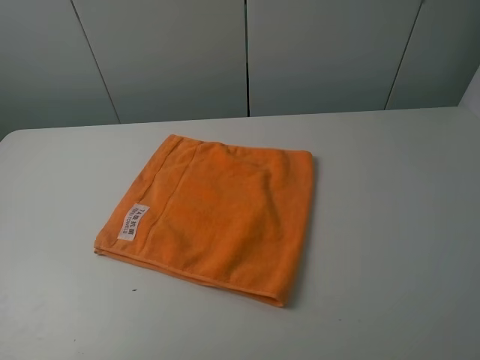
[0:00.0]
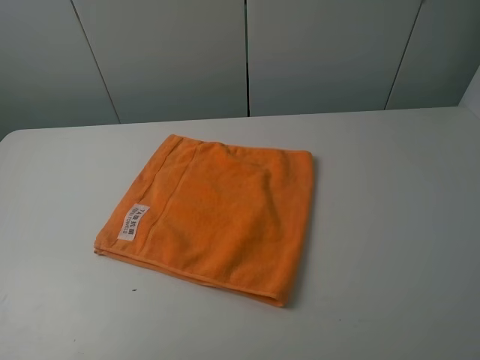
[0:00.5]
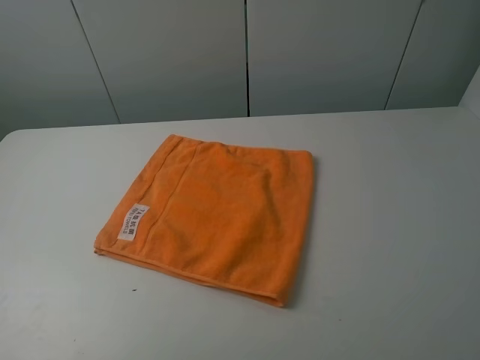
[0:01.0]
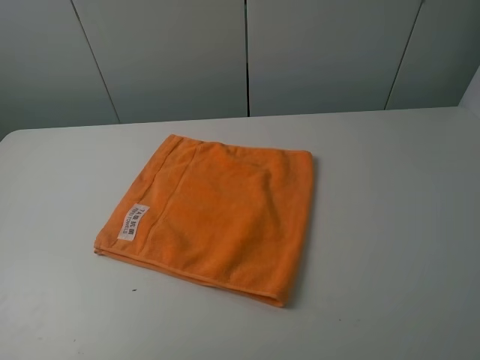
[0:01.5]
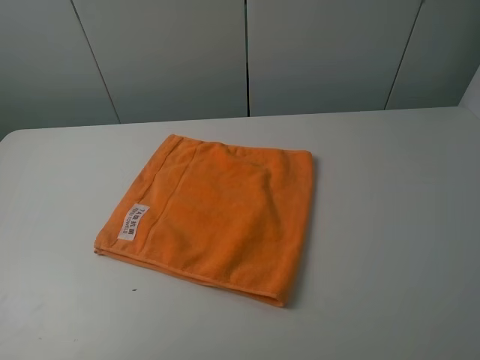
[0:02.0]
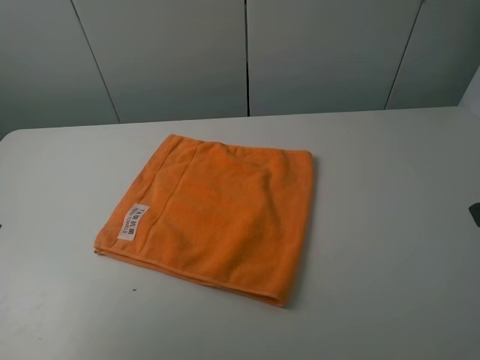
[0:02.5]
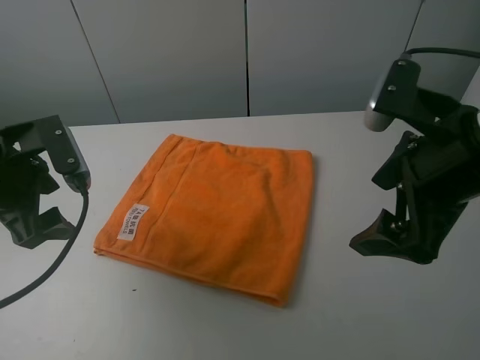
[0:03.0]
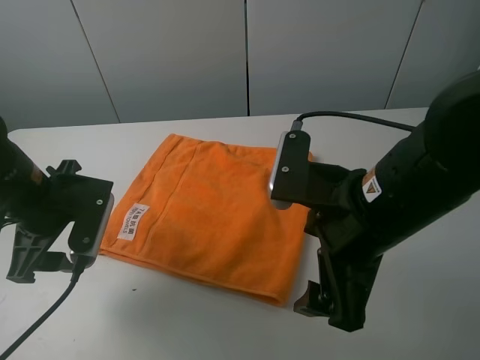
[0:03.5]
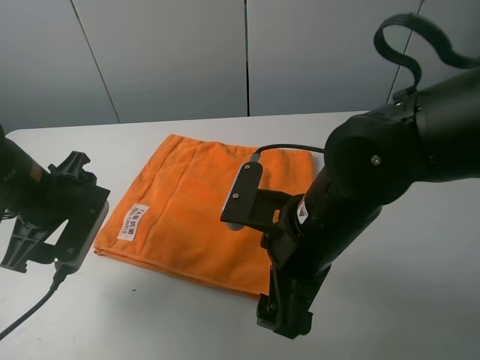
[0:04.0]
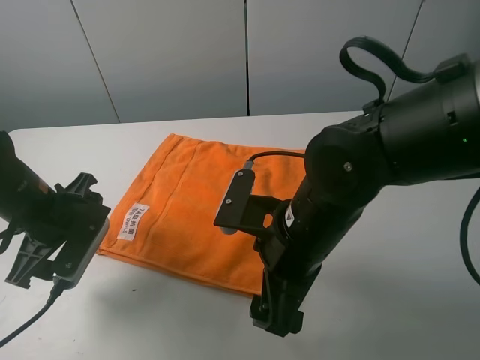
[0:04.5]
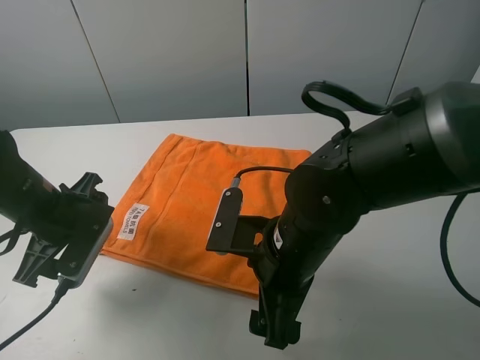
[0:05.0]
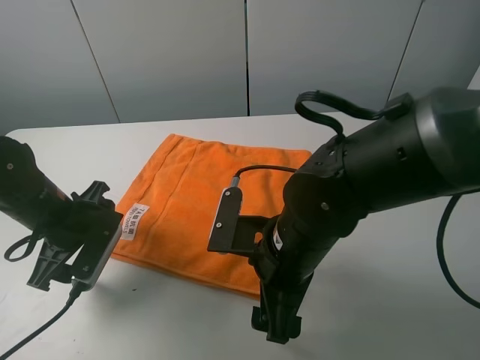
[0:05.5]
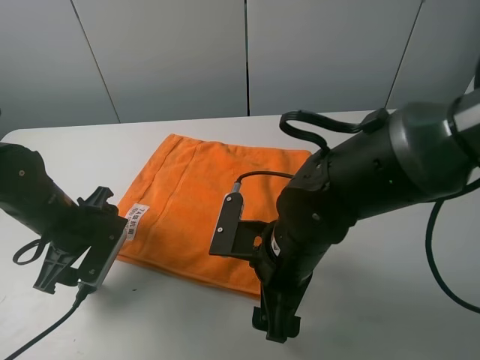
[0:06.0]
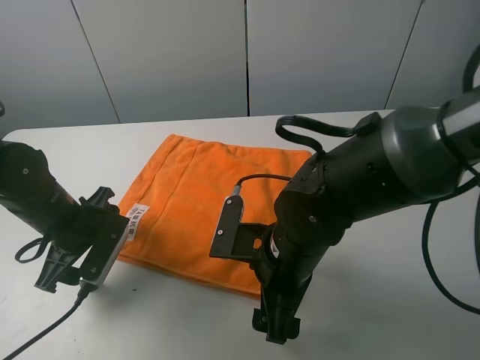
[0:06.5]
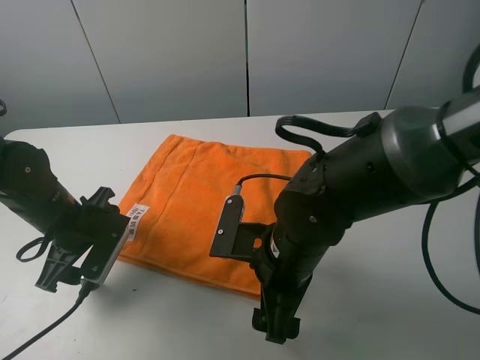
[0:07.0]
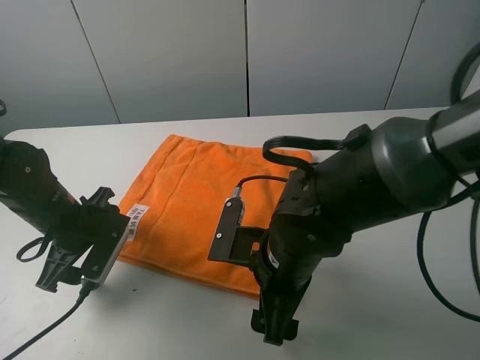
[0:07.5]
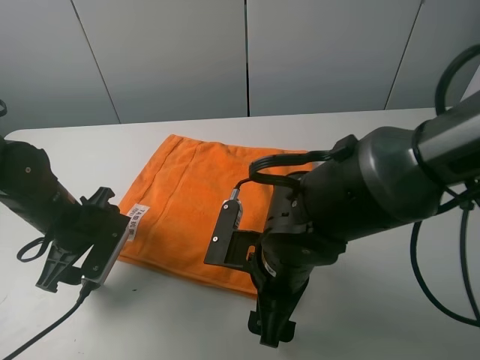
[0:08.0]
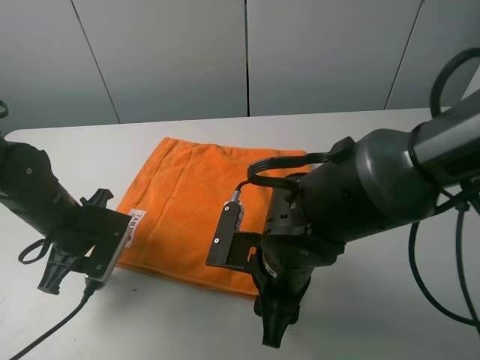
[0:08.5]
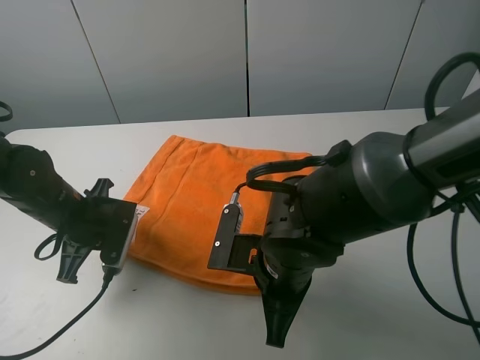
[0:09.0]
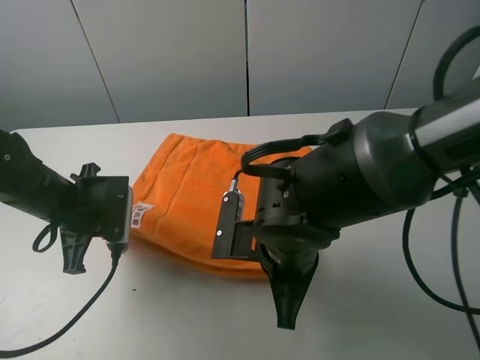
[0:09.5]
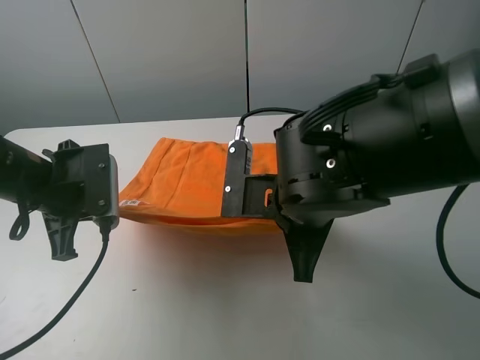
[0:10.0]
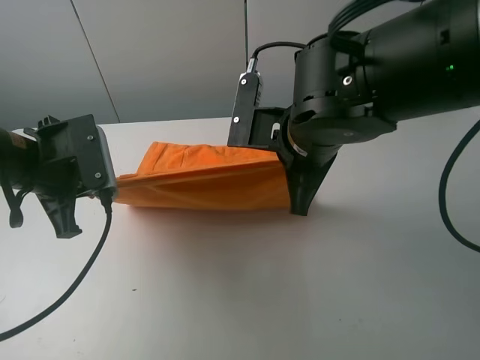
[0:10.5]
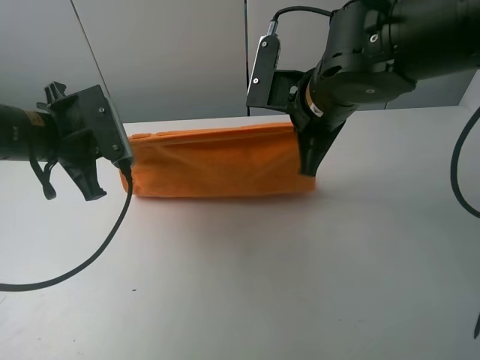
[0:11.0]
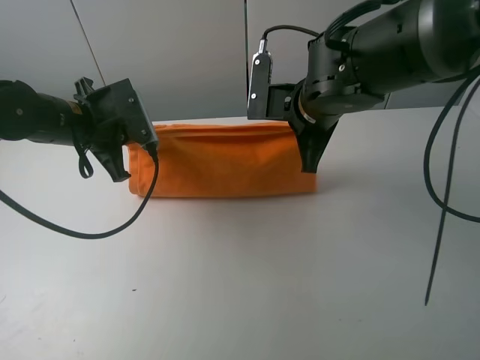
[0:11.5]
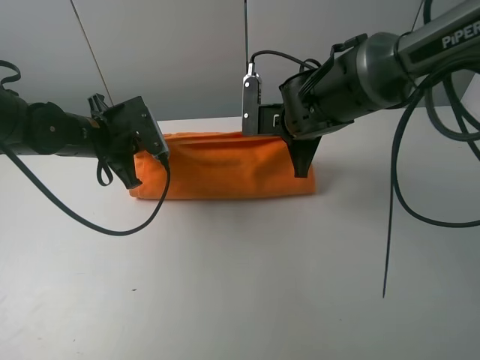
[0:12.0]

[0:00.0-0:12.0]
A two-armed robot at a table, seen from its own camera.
Task of the whole recording: fold the towels on the table.
Step, 0:00.0 to 0:09.0: Grasp the orange towel with the left gripper.
0:02.0 to 0:04.0: The right gripper moves to the left, forward and downward, approximately 30 cm; the left gripper travels forward and downward by some 25 cm.
0:04.0 to 0:06.0: Both grippers move downward, about 5 cm.
0:06.0 to 0:08.0: The grippers stay close to where they were, moving slightly.
0:08.0 to 0:10.0: Both grippers travel together upward, about 10 cm. The right gripper closes its fingers. Meanwhile the left gripper closes.
0:10.0 to 0:12.0: The grippers both shift forward by some 15 cm.

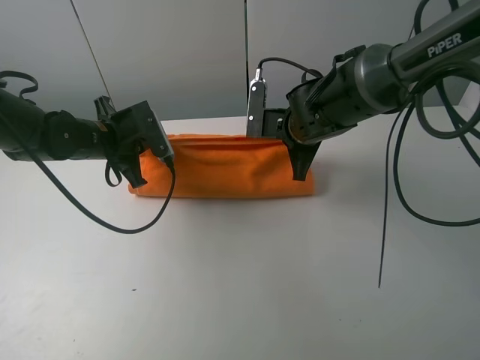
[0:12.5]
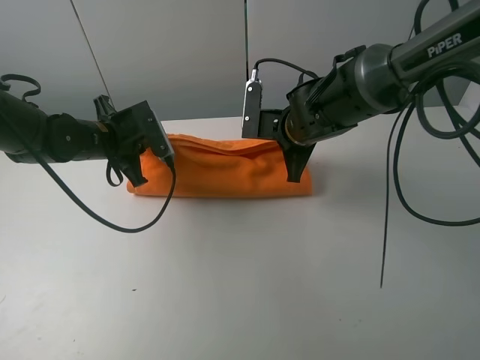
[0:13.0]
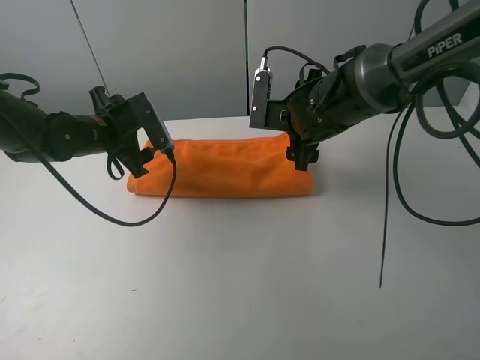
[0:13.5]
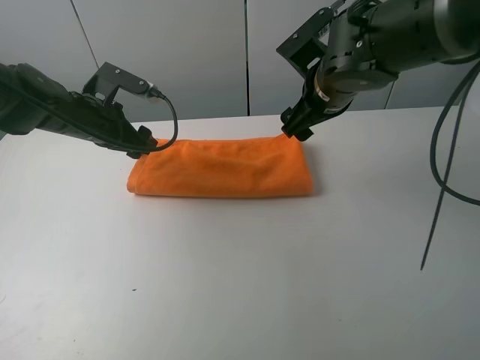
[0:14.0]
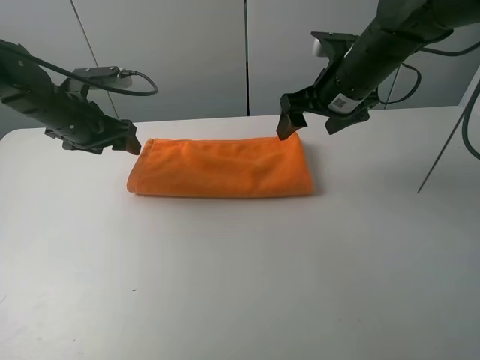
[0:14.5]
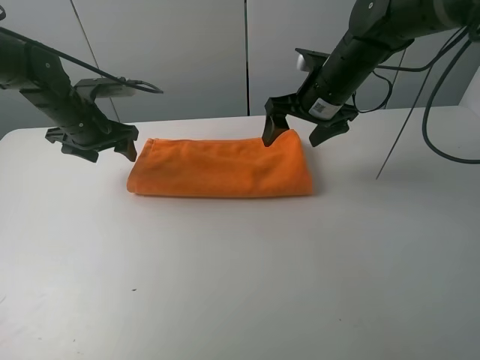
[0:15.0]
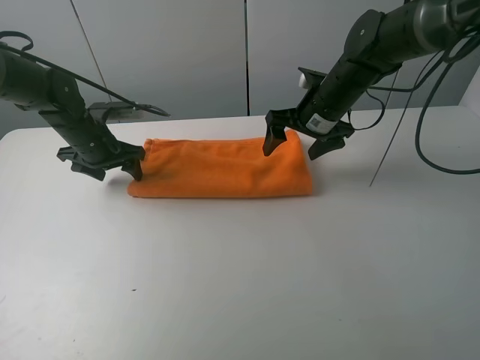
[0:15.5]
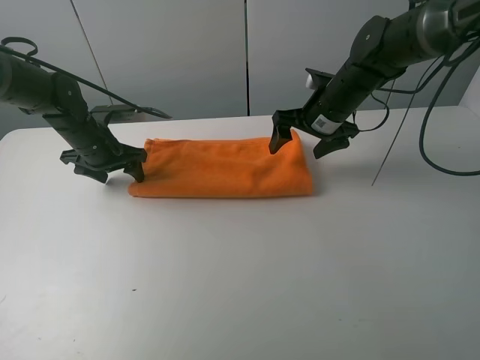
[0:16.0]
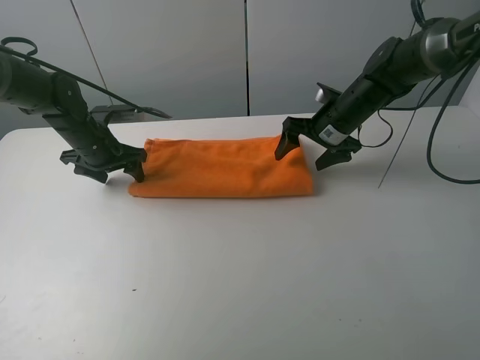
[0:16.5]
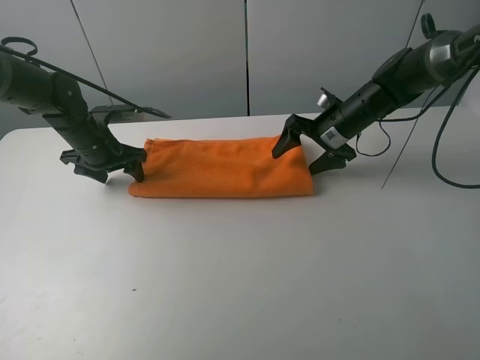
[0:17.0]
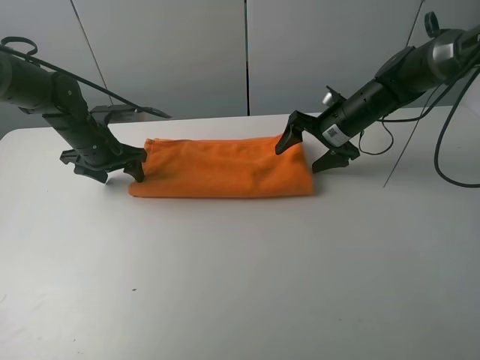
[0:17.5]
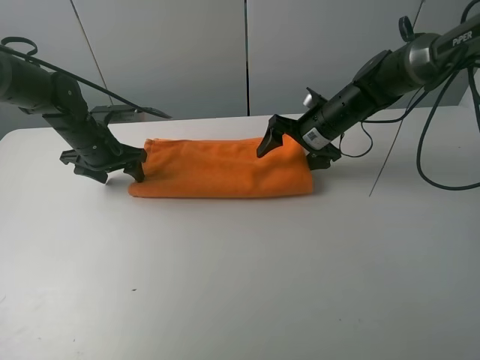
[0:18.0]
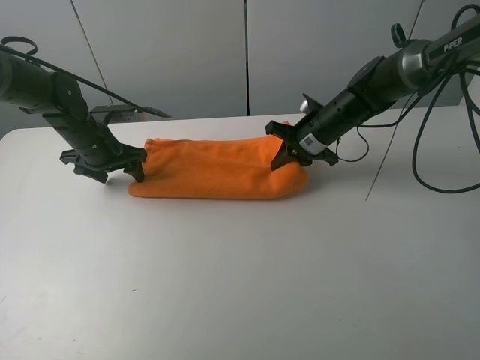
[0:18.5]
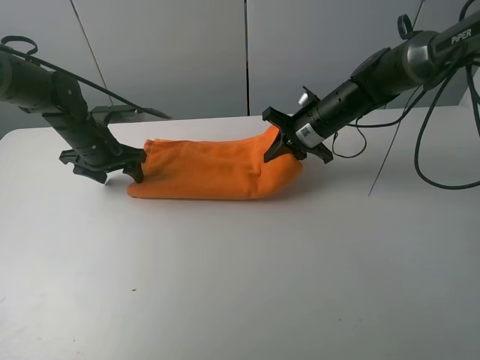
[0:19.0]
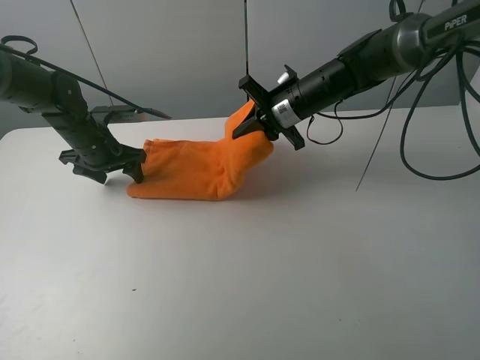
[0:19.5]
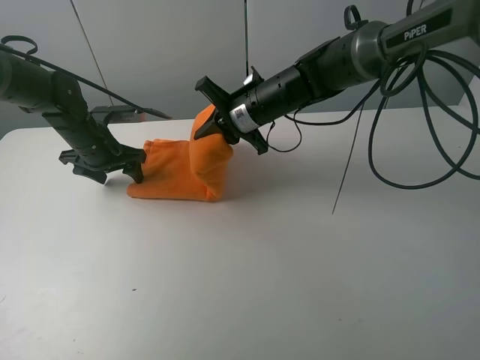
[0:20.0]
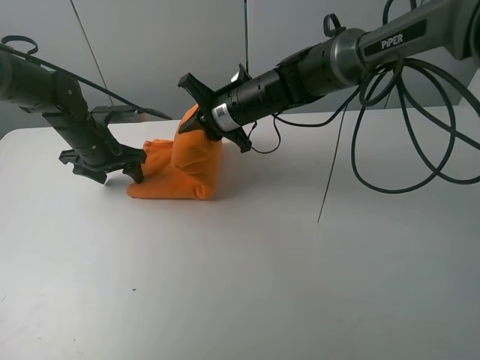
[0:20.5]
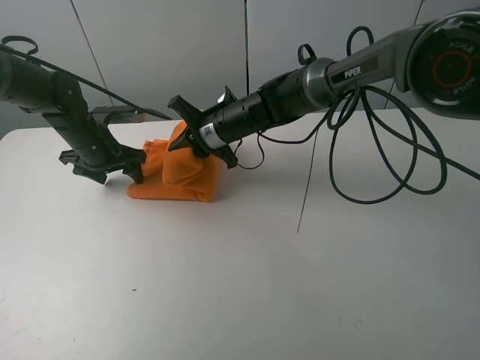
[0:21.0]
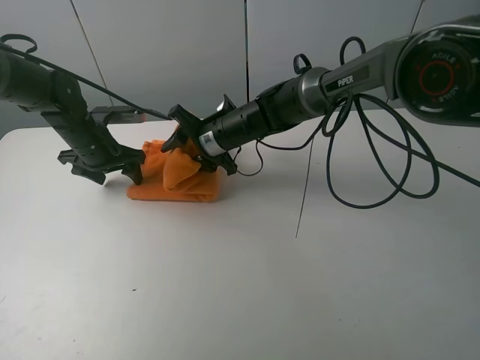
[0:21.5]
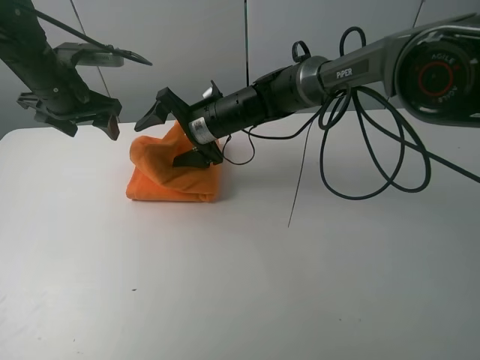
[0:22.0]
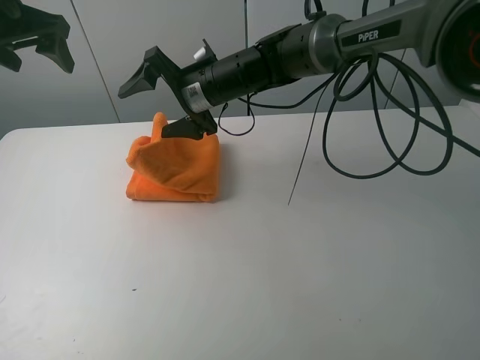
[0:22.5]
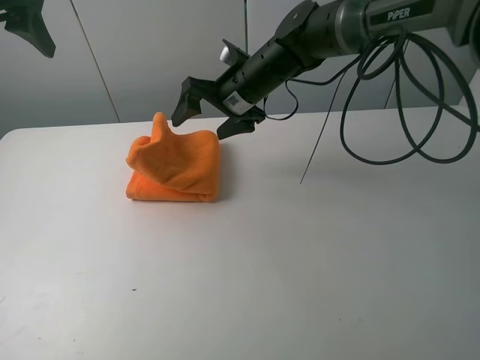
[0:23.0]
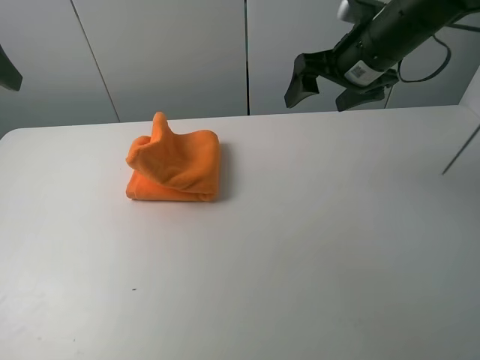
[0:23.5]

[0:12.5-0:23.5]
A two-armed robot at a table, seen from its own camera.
Task of the whole recording: fold the towels on the table.
Step, 0:14.5 to 0:15.5: Press on the orange towel with the left gripper.
Step, 0:16.0 to 0:23.0: Fold the orange towel from right to left with right gripper.
0:12.5 to 0:14.5: The right gripper travels upward and to the right by about 10 cm, and opens up. Meanwhile the left gripper moves about 5 cm, and opens.
0:14.5 to 0:16.0: Both grippers move downward, roughly 5 cm.
0:16.0 to 0:18.0: There are only small adjustments of the grippers.
0:18.0 to 0:20.0: The right gripper shifts approximately 15 cm to the left and upward, and closes its fingers.
0:20.0 to 0:21.5: The right gripper goes some 5 cm downward, and opens up.
0:21.5 to 0:23.5: The left gripper is displaced upward and backward by roughly 30 cm; the right gripper heads to the right and upward, covering approximately 25 cm.

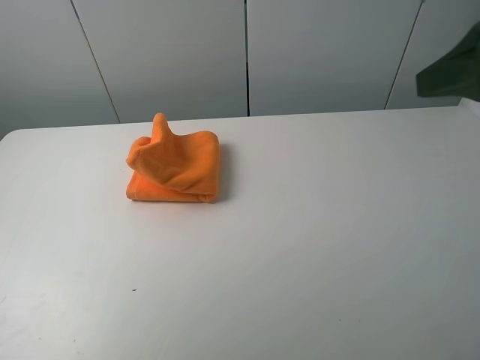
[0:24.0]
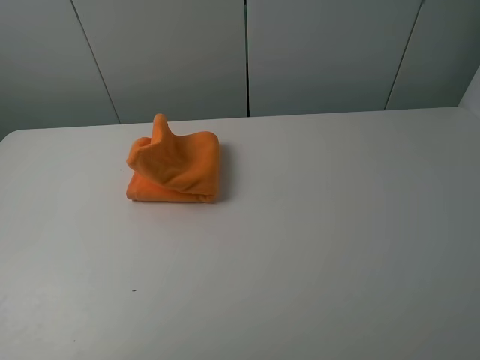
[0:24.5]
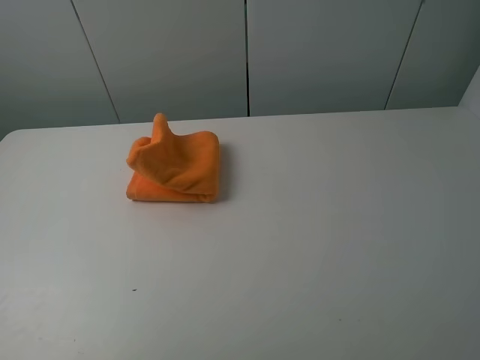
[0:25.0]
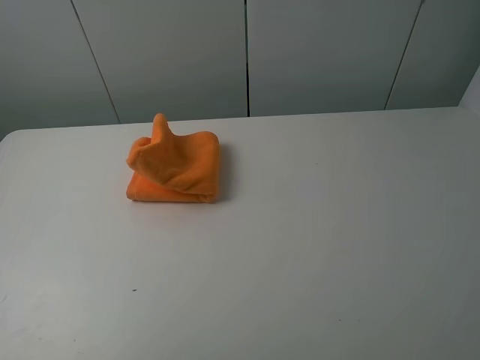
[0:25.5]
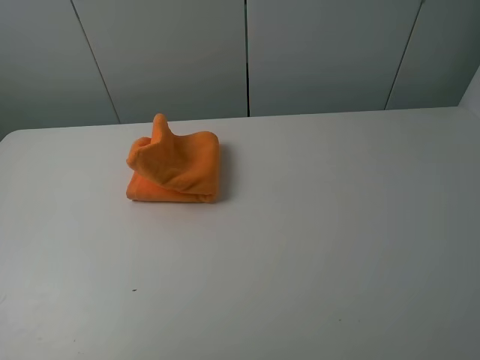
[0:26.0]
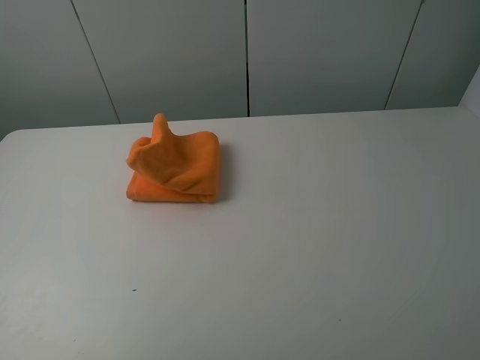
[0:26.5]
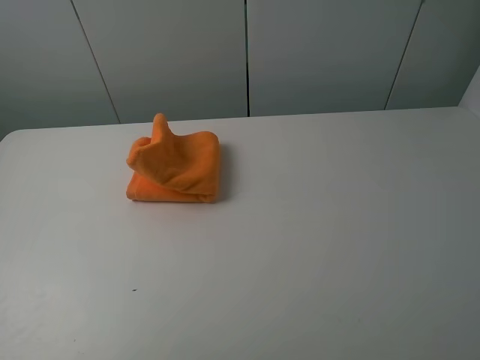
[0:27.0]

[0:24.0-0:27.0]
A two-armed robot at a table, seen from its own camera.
Task of the whole recording: fold the towels on the table.
0:24.0 to 0:25.5: The grippers both shift backward and downward by about 15 cm.
